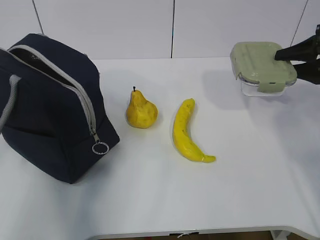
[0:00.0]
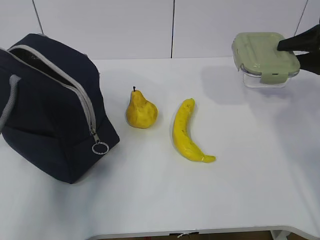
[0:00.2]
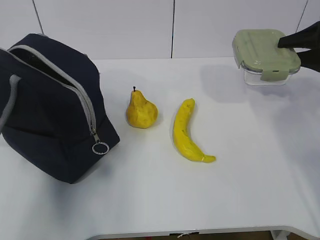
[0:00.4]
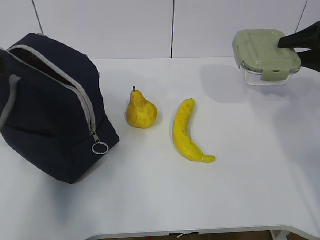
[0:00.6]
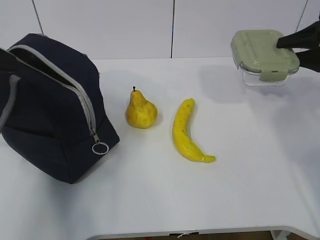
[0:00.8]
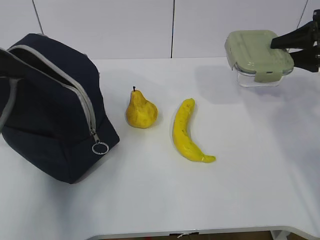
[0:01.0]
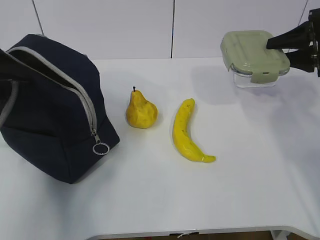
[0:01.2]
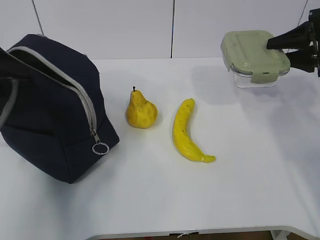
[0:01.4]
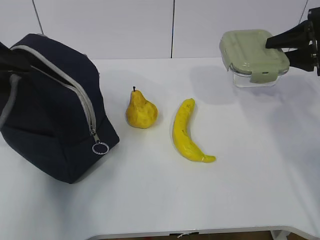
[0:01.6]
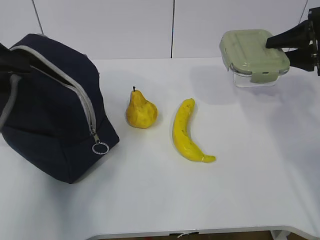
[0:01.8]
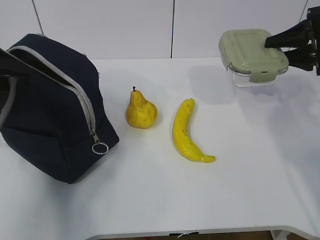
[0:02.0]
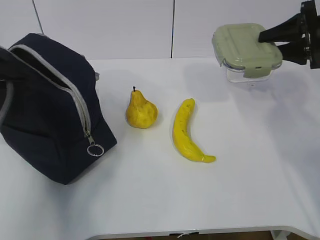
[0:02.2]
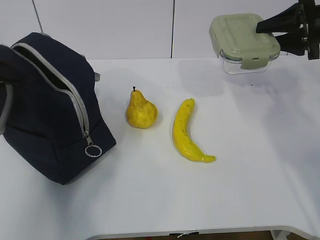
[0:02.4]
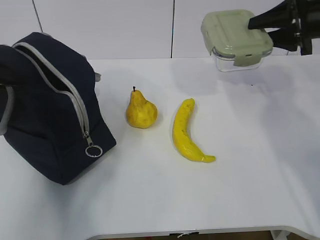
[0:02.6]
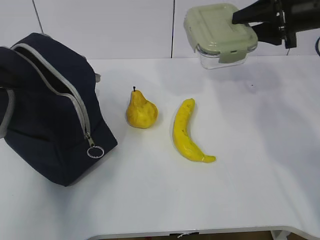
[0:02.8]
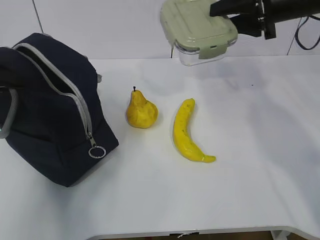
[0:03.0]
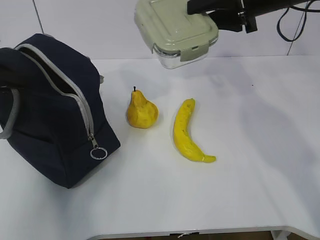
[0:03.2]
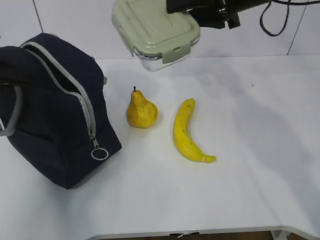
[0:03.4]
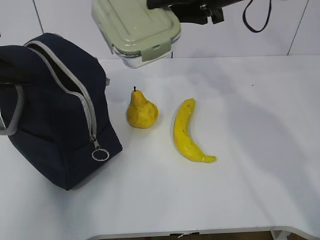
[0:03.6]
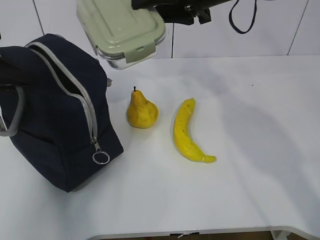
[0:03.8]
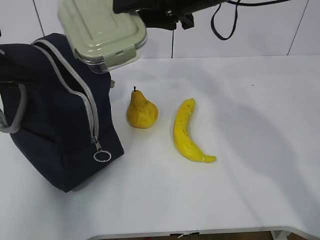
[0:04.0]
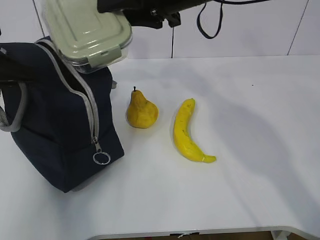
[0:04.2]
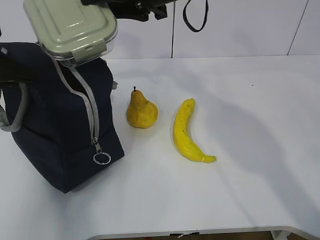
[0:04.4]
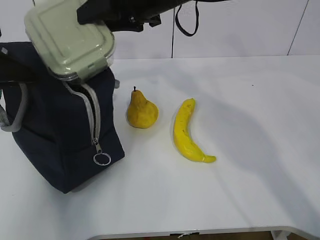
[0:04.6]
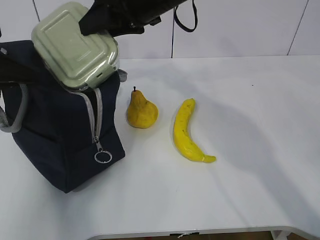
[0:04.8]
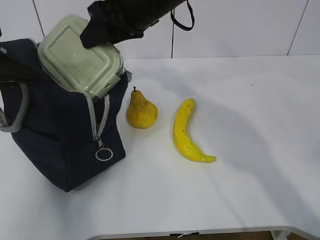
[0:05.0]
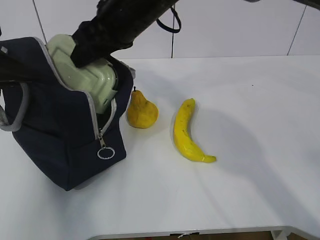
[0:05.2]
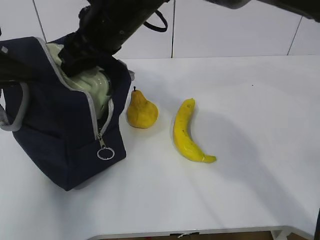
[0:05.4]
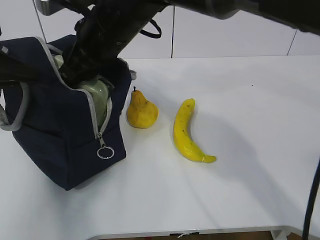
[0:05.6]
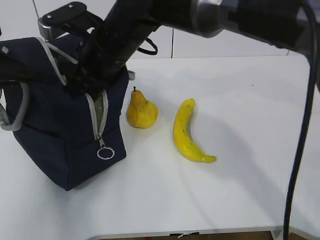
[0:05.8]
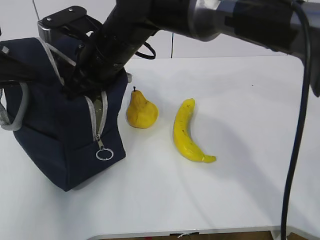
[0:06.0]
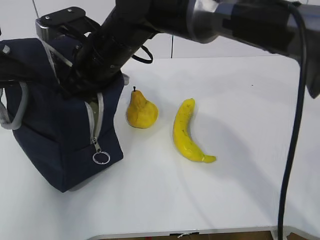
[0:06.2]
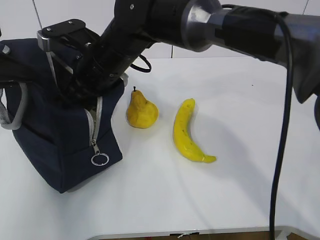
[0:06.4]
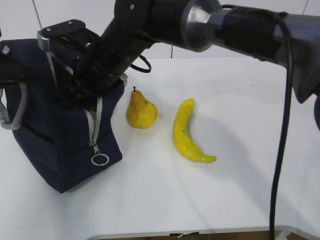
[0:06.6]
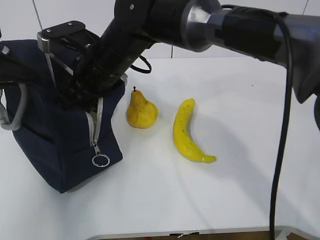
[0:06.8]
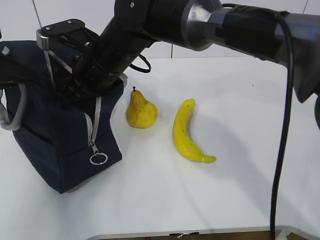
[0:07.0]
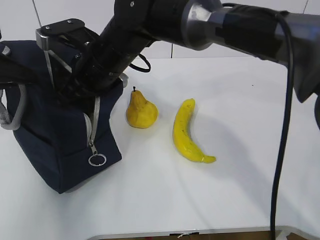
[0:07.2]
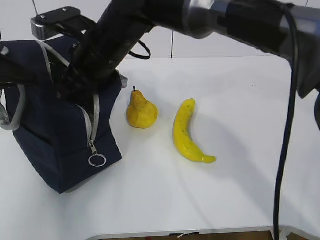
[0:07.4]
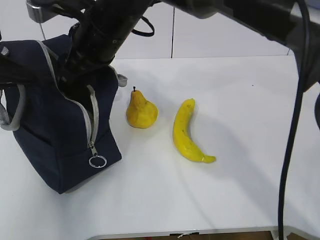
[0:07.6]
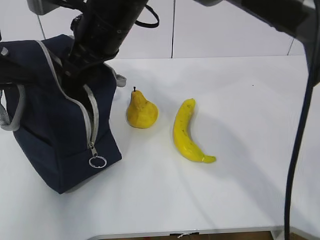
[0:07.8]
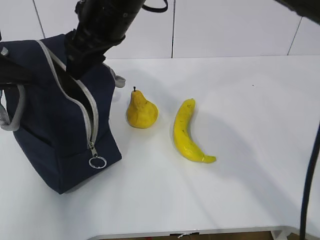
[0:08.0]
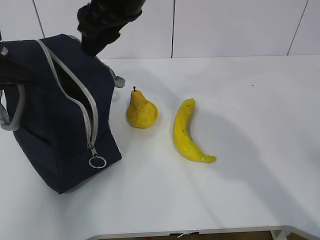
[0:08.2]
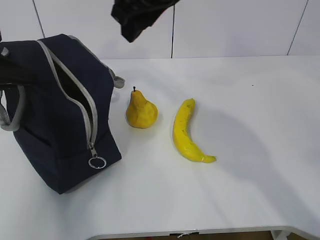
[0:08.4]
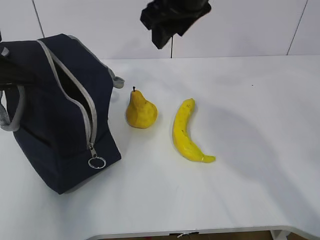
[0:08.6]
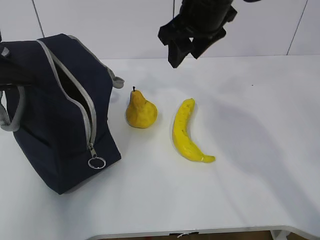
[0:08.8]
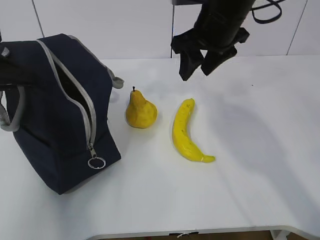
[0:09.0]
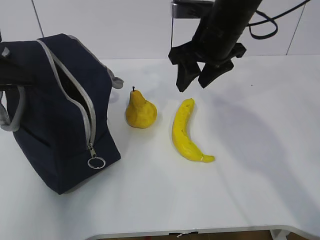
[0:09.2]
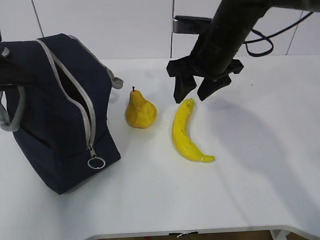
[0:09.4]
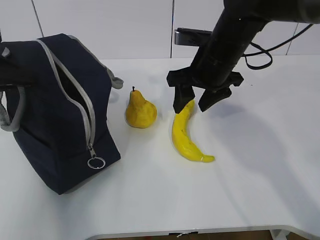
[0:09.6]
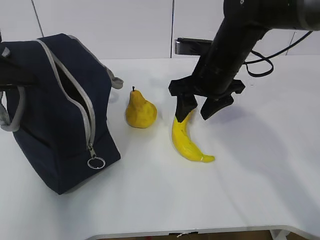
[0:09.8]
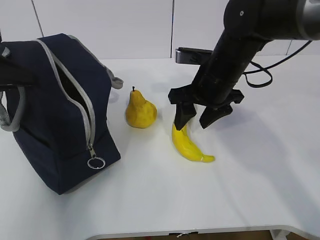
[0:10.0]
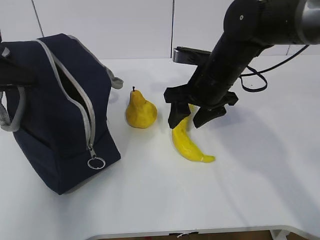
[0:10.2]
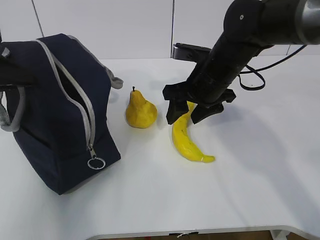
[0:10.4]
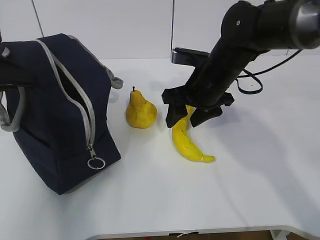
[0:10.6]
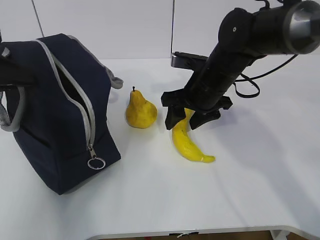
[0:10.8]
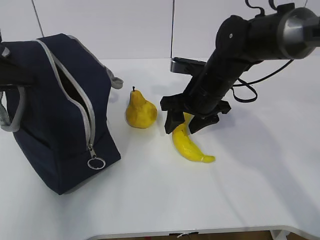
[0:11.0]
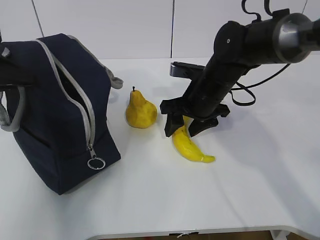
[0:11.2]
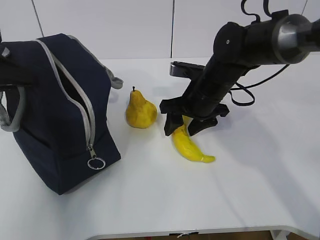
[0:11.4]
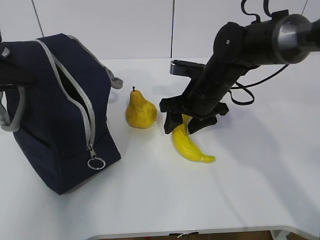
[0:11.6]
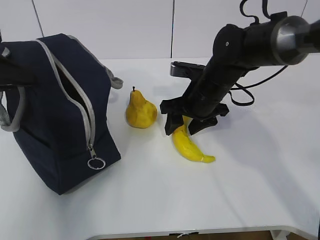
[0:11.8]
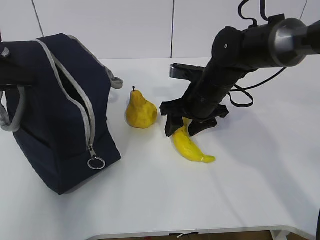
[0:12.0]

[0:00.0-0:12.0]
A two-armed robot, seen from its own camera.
Step, 0:01.4 to 0:03.2: Place it into the bag with your right hand.
Step, 0:03.4 to 0:08.0: Grab the banana with your right hand.
0:00.0 to 0:01.6: The left gripper is displaced forward by approximately 15 cm, and opens.
0:01.6 to 0:03.0: The right gripper is displaced to the left and upward by some 10 cm; the left gripper closes its fingers.
0:03.0 to 0:04.4: The right gripper shifts some 20 cm to the left.
0:04.4 to 0:06.0: The right gripper goes about 15 cm to the left and downward.
0:06.0 to 0:07.6: The grippers stay close to where they were, moving slightly.
0:07.6 to 0:09.0: The right gripper moves to the right, about 15 cm.
0:09.0 to 0:10.4: The right gripper moves downward, some 10 cm.
0:10.4 to 0:12.0: The right gripper changes place by roughly 5 cm.

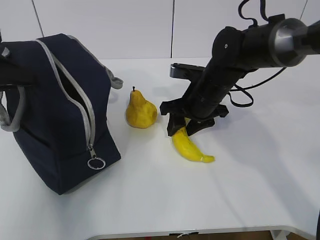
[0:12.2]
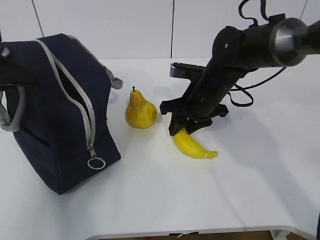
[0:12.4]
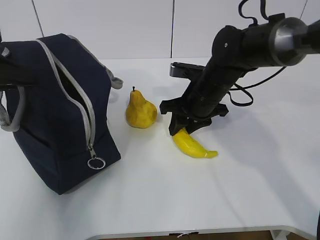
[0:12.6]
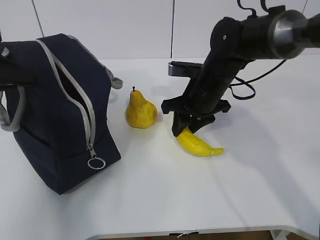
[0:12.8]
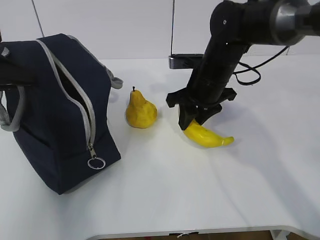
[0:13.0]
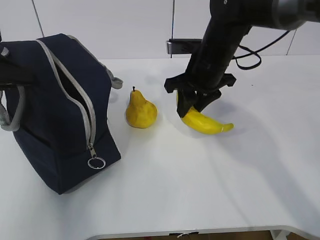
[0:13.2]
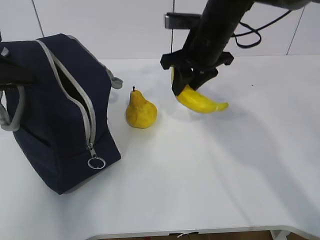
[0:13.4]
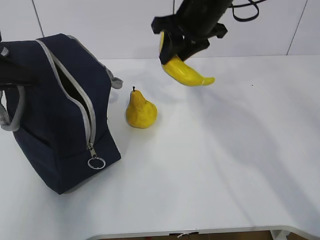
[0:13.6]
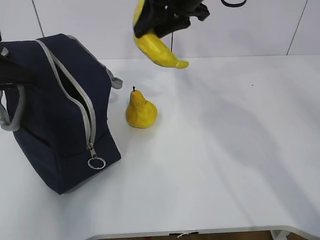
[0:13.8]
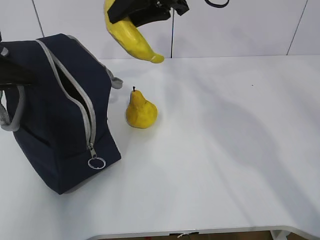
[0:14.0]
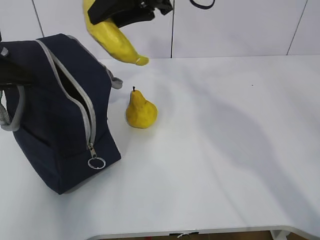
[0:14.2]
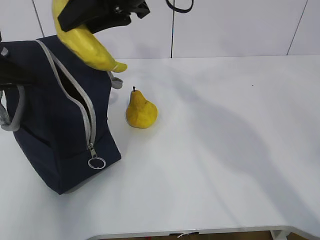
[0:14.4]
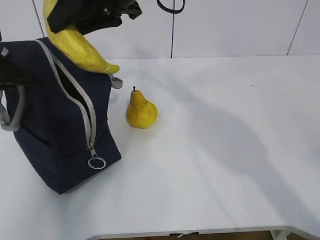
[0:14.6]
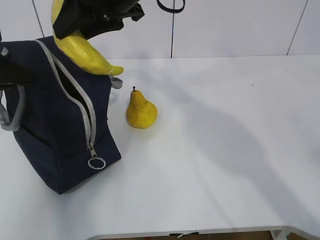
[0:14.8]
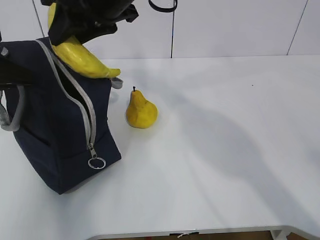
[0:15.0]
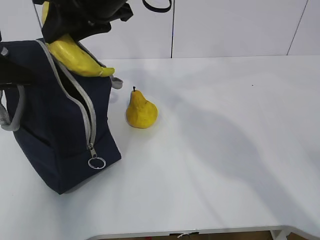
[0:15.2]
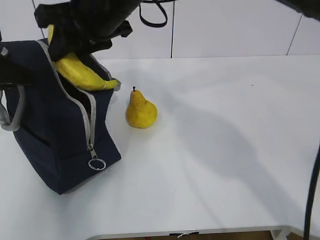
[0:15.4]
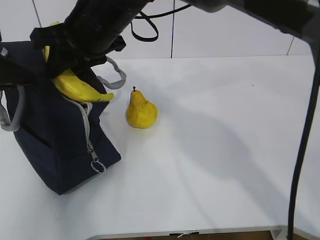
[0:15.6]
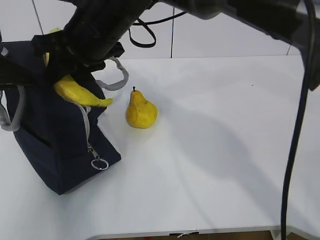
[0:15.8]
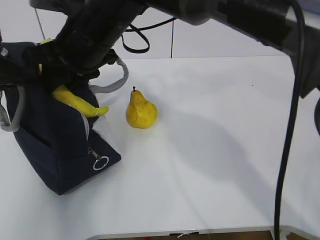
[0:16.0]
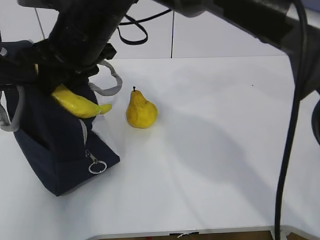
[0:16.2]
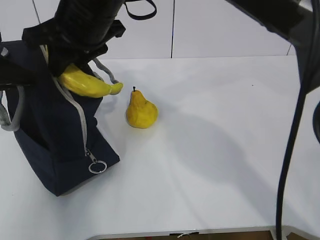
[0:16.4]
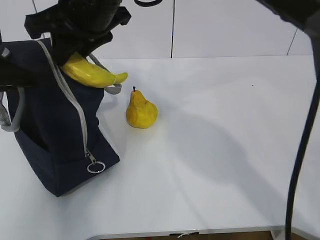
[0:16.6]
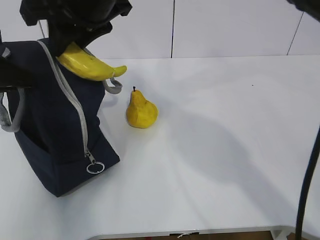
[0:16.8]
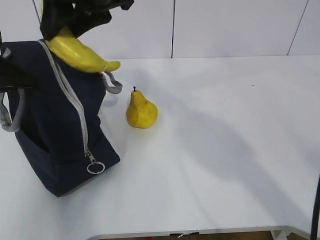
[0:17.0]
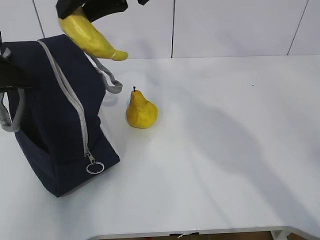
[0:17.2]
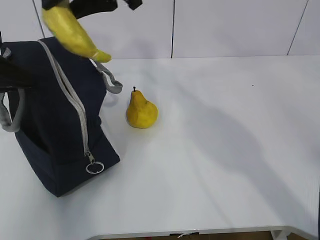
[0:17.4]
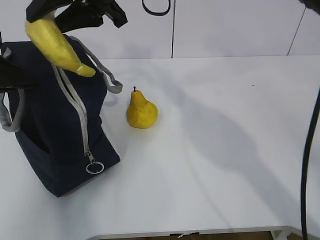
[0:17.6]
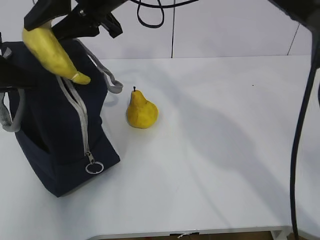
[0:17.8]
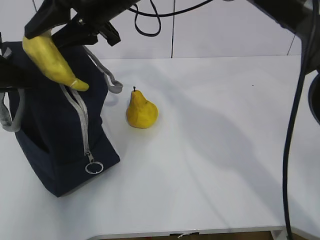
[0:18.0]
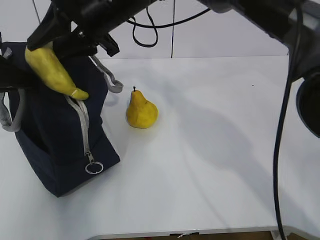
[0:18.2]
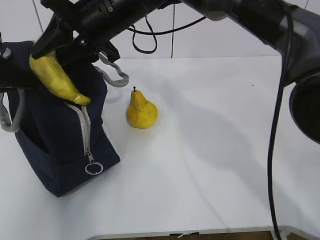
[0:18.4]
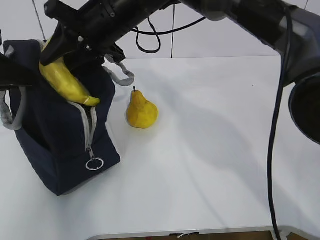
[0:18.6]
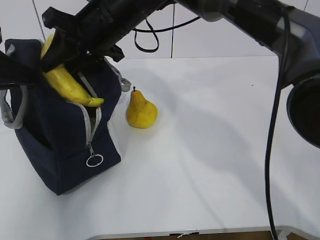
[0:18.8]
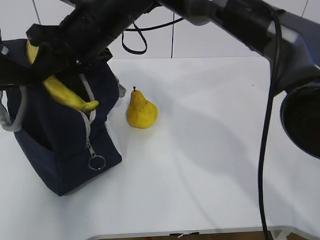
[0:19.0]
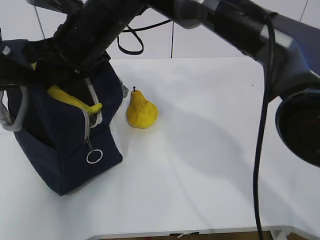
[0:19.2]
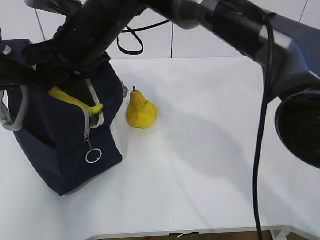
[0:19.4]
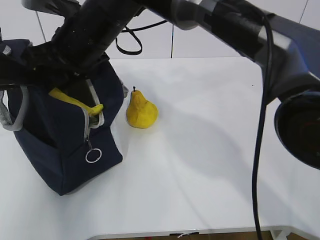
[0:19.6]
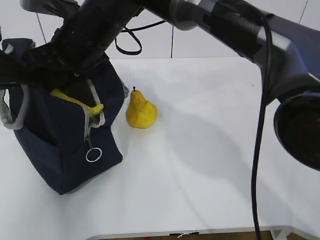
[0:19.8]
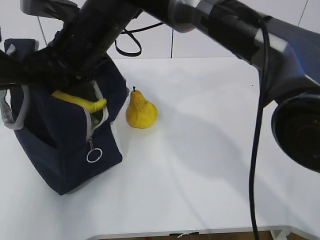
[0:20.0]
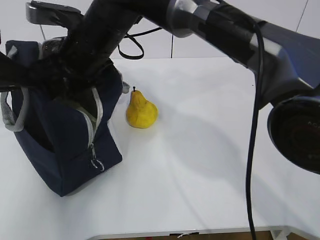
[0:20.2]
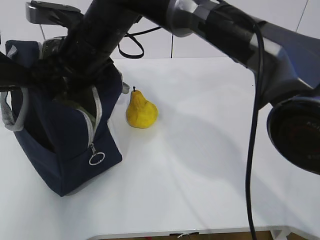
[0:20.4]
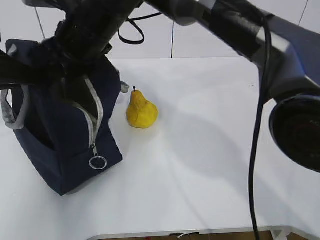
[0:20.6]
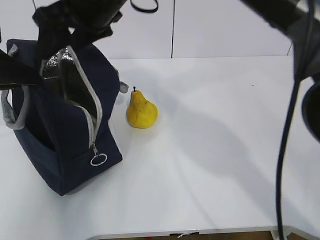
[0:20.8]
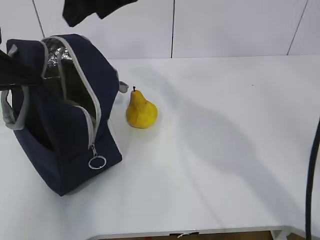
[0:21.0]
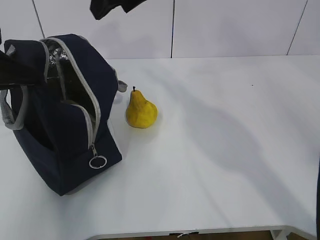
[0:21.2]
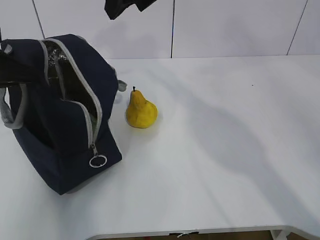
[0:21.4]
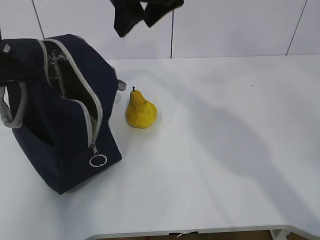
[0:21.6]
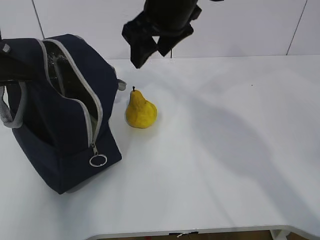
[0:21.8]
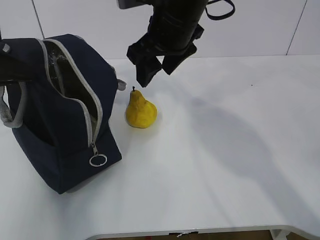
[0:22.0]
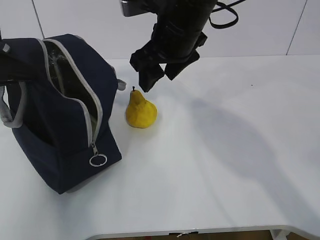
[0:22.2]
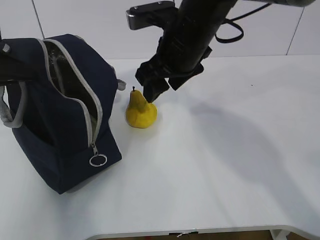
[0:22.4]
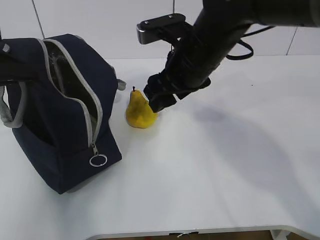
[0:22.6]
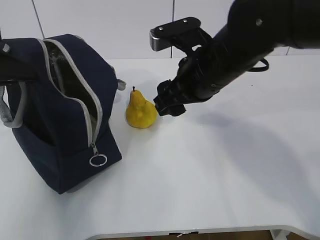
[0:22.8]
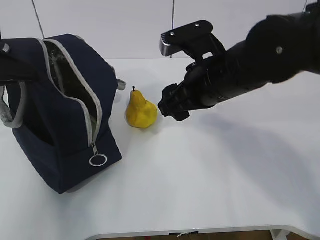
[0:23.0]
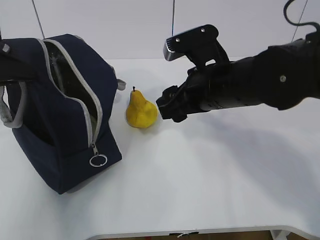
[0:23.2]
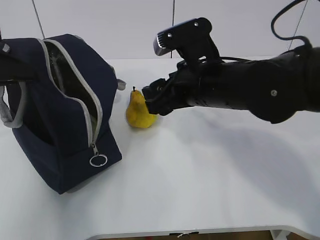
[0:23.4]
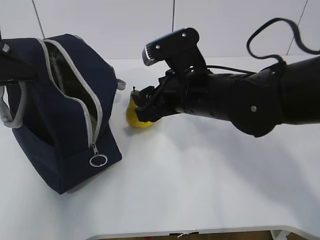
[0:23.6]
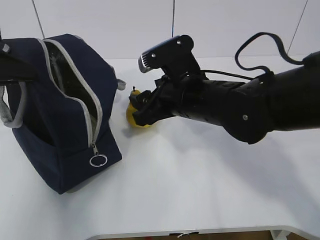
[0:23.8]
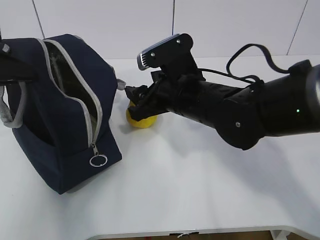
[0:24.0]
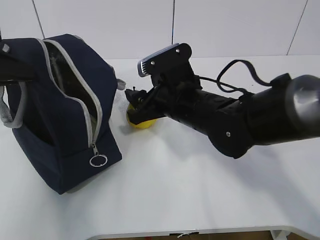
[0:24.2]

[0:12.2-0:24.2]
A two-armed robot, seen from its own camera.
Step, 0:12.2 to 0:14.2: Place it into the bag with your right hand.
Step, 0:14.4 to 0:21.8: Grab the pear with your right hand.
0:12.2 to 0:13.8: The right gripper is displaced upward by roughly 20 cm.
0:13.8 to 0:15.2: The right gripper travels to the left and backward by roughly 10 cm.
0:18.2 to 0:19.8: The right gripper moves about 5 cm.
0:19.8 to 0:21.2: The right gripper is displaced upward and to the right by some 15 cm, and opens.
0:21.2 to 0:22.6: The right gripper heads downward and to the right, covering some 15 cm.
0:22.6 to 0:24.2: The right gripper shifts approximately 10 cm downward.
